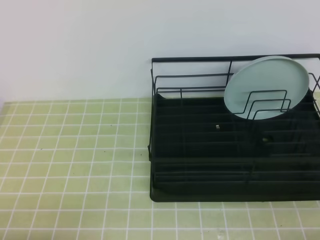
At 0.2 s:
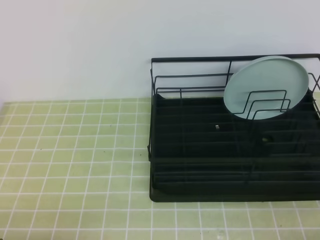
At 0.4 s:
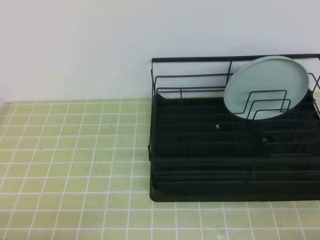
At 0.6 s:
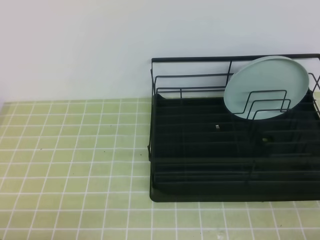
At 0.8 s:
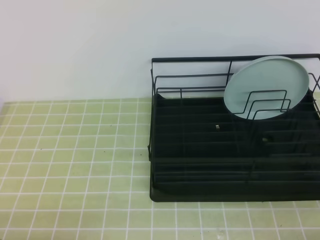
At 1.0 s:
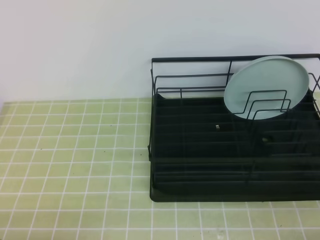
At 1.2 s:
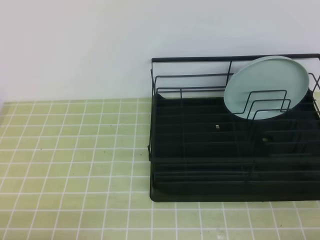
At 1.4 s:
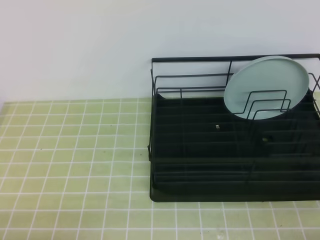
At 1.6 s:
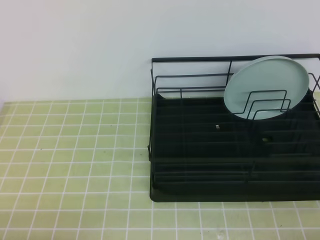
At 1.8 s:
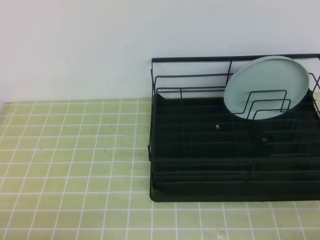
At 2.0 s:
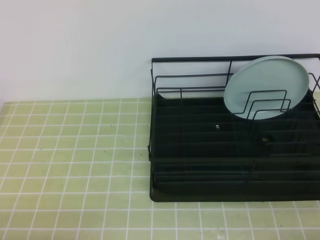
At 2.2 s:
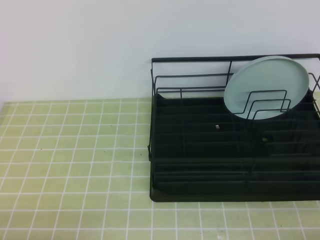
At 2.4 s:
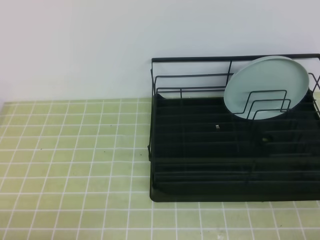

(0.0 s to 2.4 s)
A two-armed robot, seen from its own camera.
1.2 s - 2.4 s: The two grippers keep their place.
